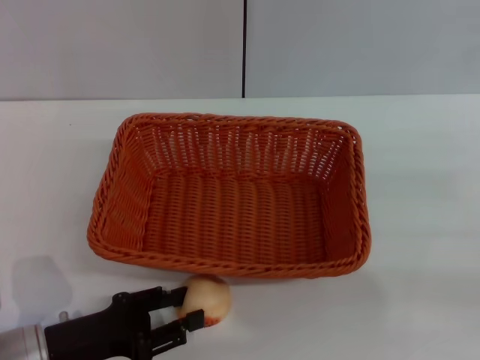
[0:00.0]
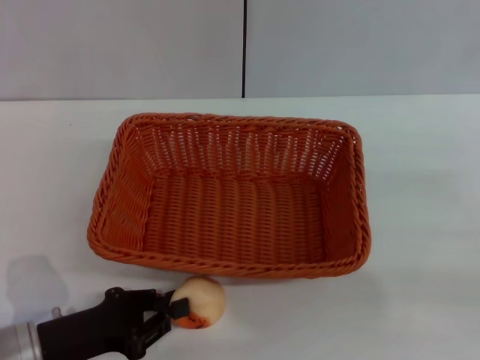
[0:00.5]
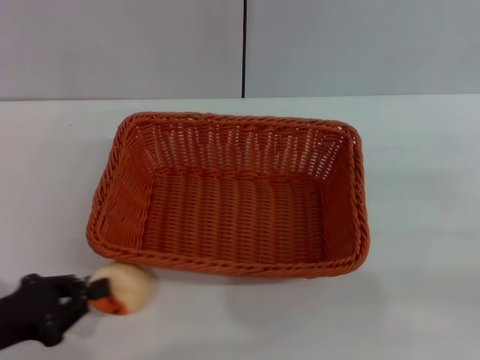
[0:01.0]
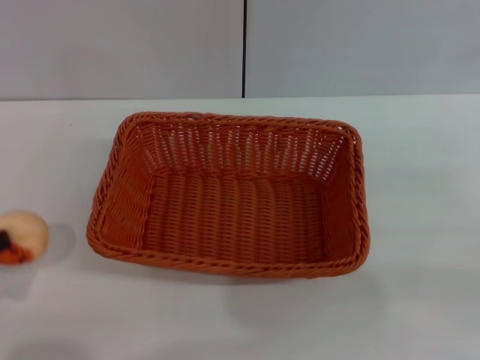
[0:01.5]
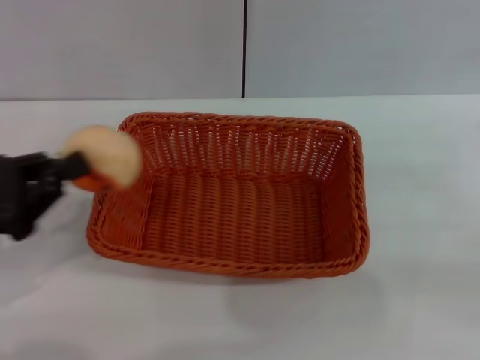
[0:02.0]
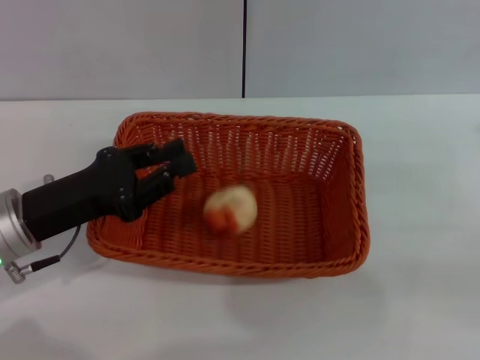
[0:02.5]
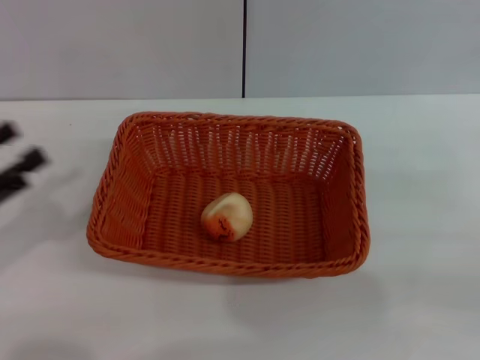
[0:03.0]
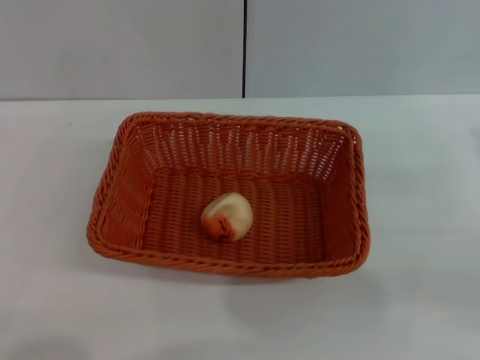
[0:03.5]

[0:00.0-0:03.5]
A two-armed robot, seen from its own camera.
Step, 0:02.0 to 0:02.5: Place the egg yolk pastry into the basket with the left gripper.
0:00.0 to 0:02.0: The left gripper moves upward and to the left, approximately 10 cm, and closes up.
0:02.0 to 0:03.5: The left gripper is displaced backward and to the left by approximately 15 cm, and opens.

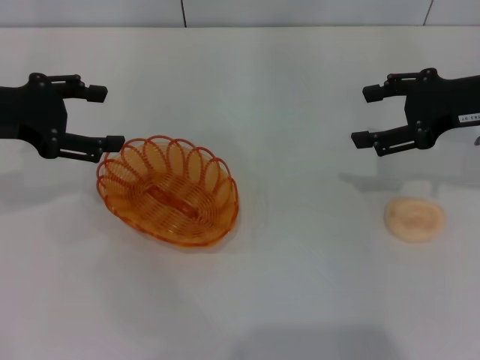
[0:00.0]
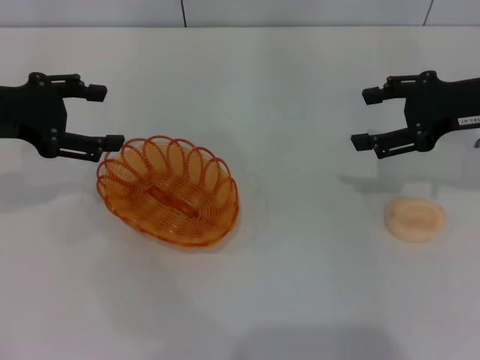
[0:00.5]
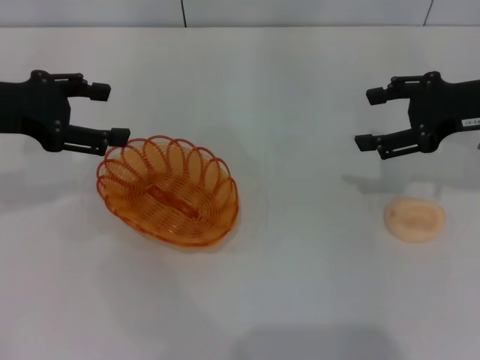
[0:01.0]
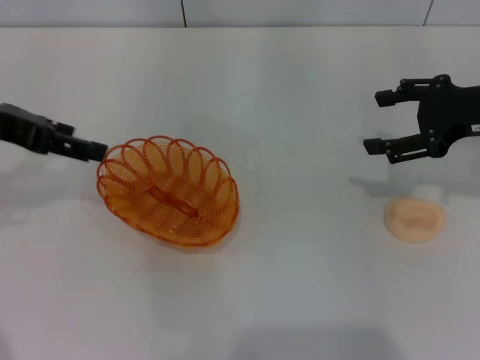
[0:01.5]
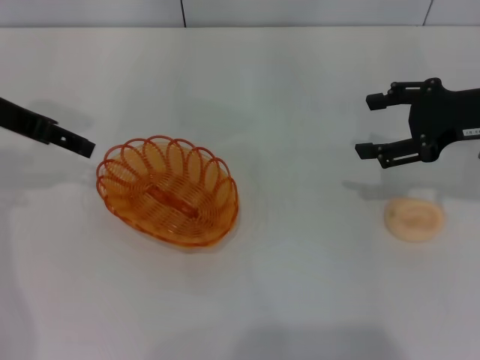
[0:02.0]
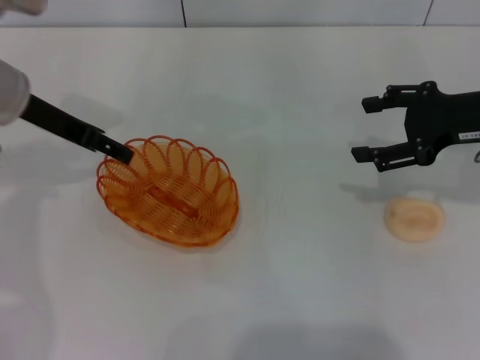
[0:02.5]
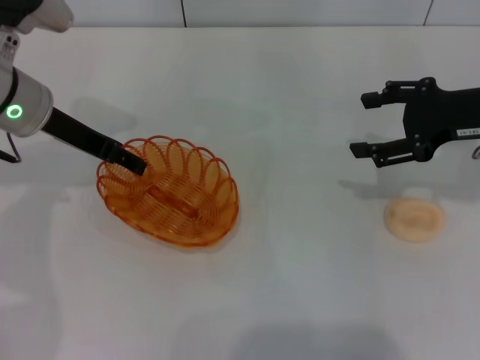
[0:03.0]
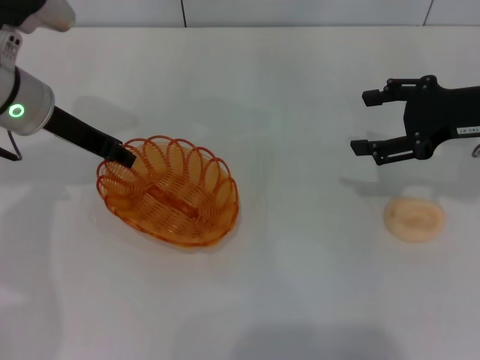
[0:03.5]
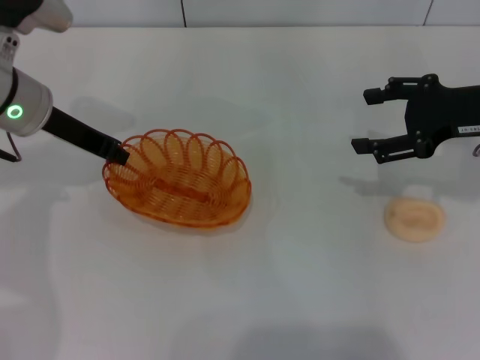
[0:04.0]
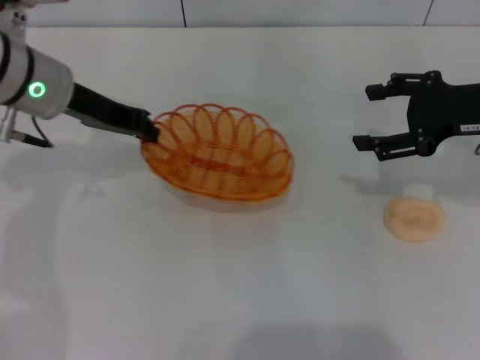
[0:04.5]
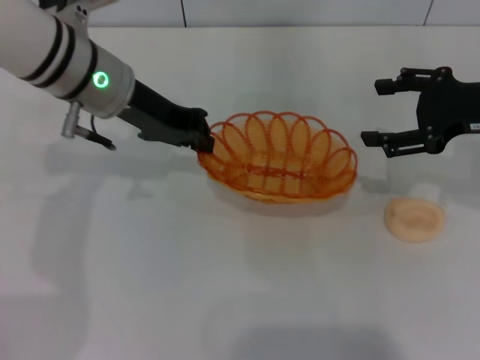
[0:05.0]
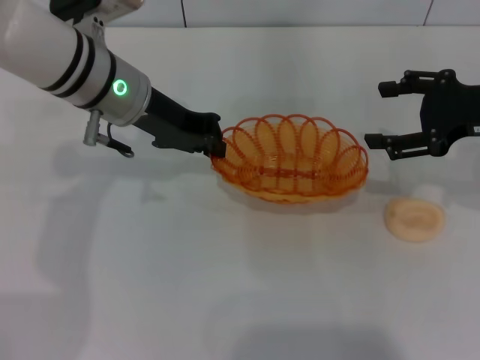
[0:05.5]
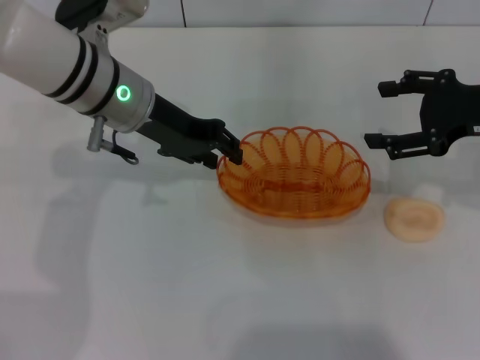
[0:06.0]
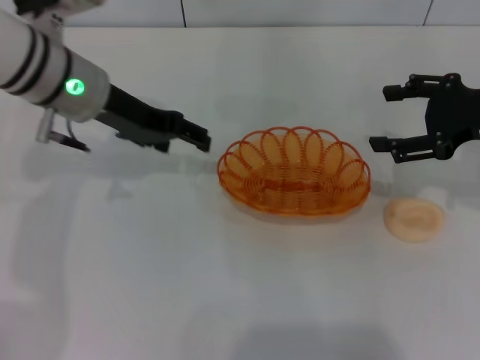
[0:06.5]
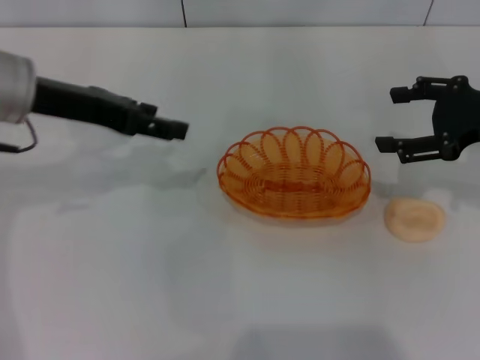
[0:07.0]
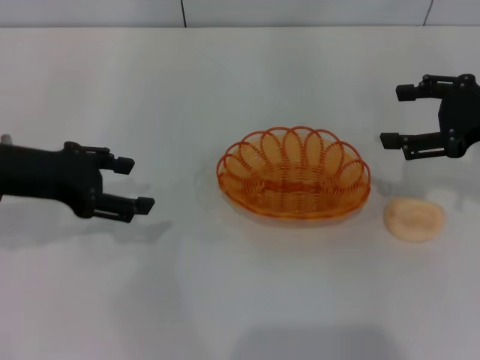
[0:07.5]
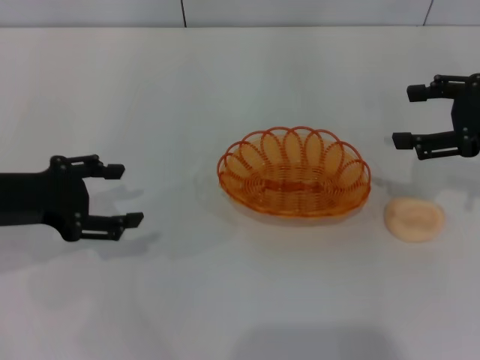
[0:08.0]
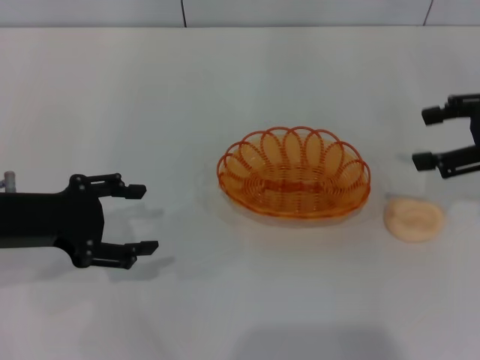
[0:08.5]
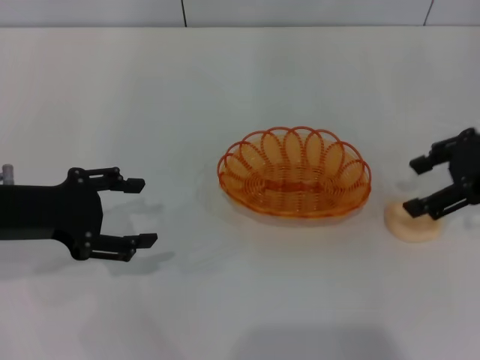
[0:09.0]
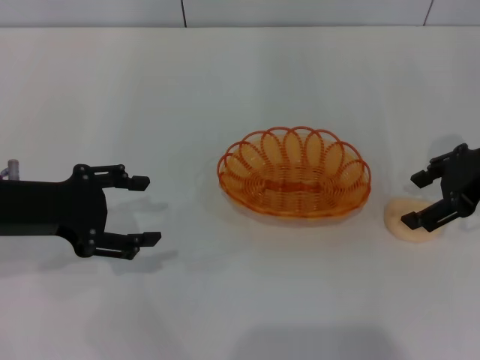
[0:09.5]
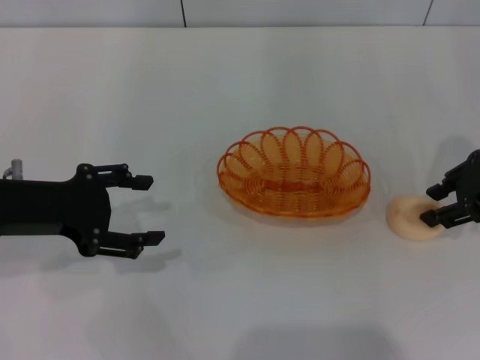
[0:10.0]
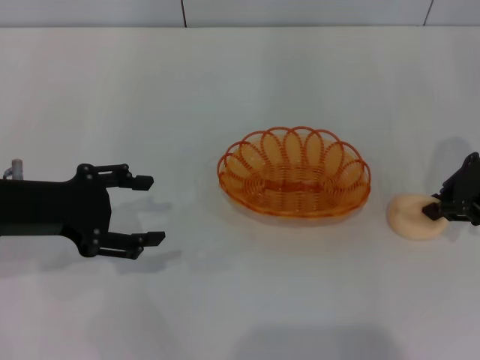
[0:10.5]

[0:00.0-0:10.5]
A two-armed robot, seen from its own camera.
Step, 0:00.0 to 0:04.5: Pick up the basket with the left gripper.
Step, 0:05.0 to 0:06.0: Place the basket in the center of view with the left gripper.
0:02.0 to 0:04.0: The left gripper goes roughly 5 cm downward and to the right, and closes up.
0:04.0 to 0:06.5: The left gripper opens its fingers.
0:06.5 to 0:08.5: The left gripper travels backward and to the left by about 15 cm.
0:08.5 to 0:10.5: The right gripper ends up roughly 5 cm from where it was, and closes.

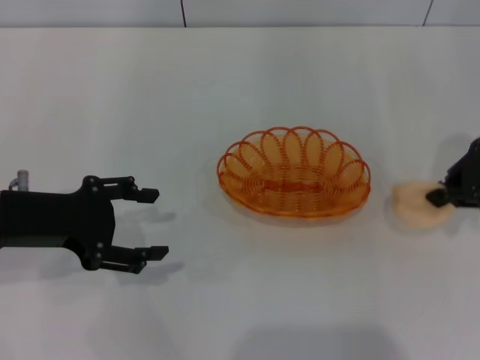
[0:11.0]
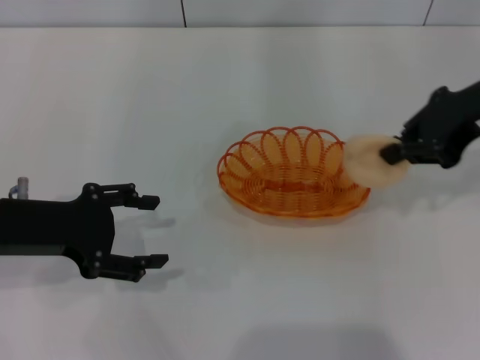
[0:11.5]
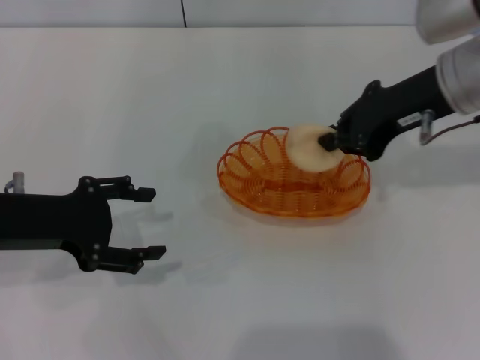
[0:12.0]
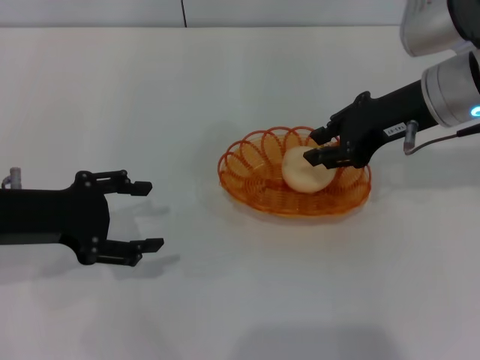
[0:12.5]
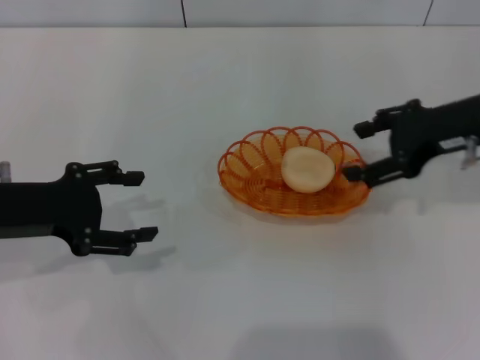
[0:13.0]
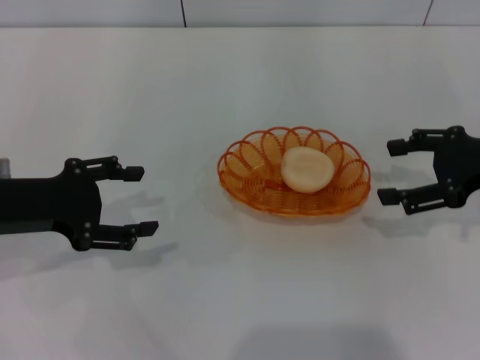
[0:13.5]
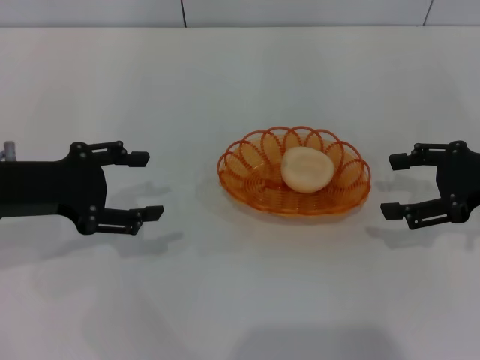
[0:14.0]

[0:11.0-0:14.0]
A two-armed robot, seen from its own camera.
Step, 0:11.5 to 0:12.5: Place the egg yolk pastry into the basket with the right gripper.
0:11.0 to 0:12.5: The right gripper goes some 10 cm to the left.
0:12.5 to 0:14.0: The right gripper travels to the right, backward and downward by some 15 cm, and opens.

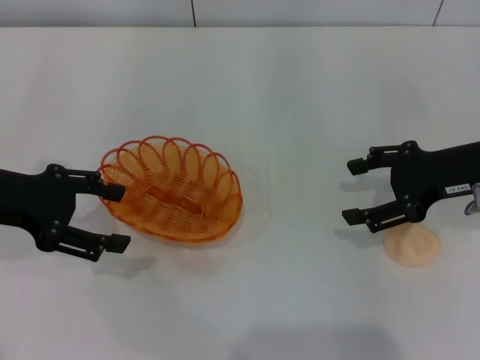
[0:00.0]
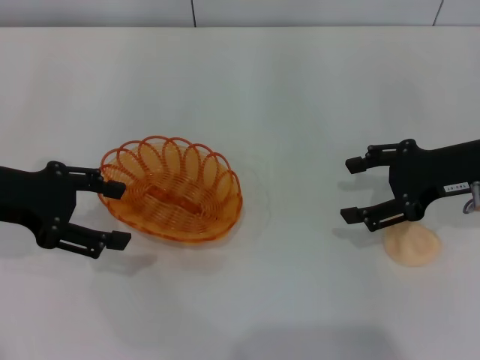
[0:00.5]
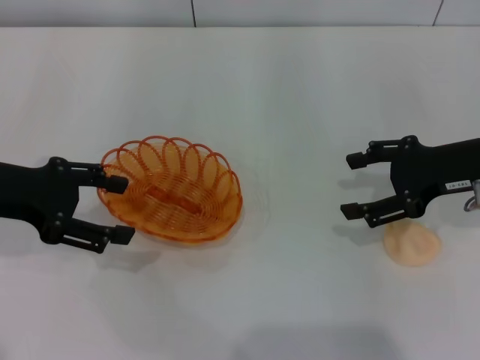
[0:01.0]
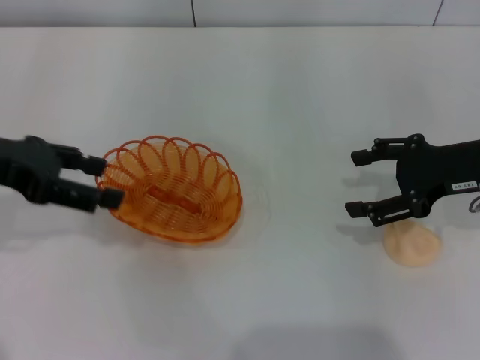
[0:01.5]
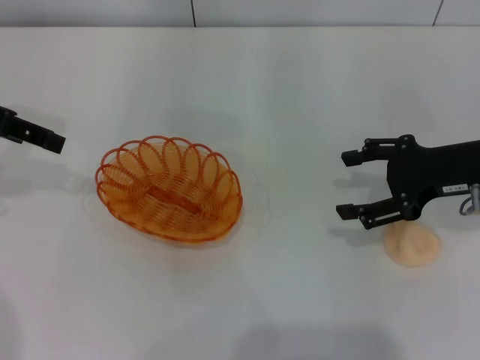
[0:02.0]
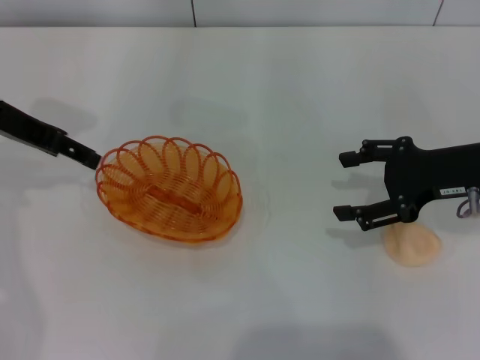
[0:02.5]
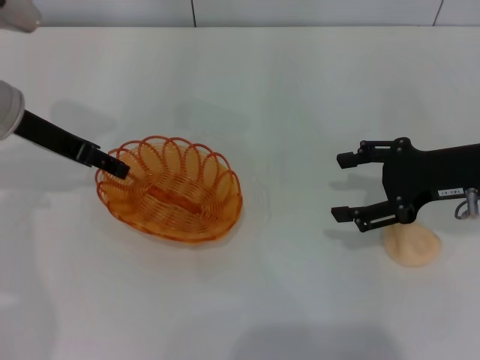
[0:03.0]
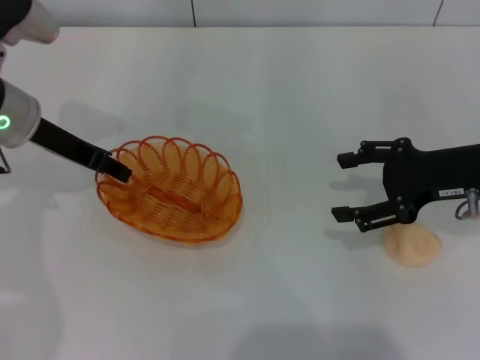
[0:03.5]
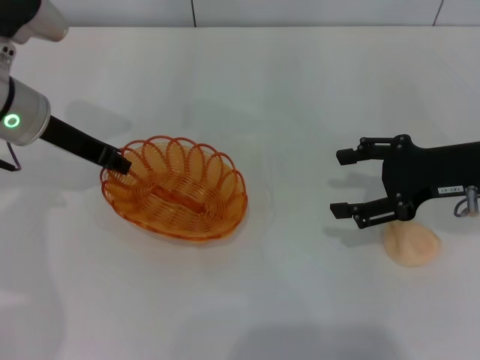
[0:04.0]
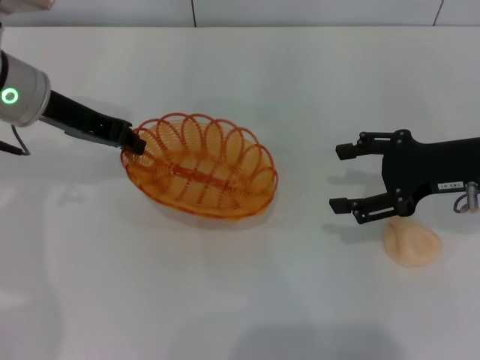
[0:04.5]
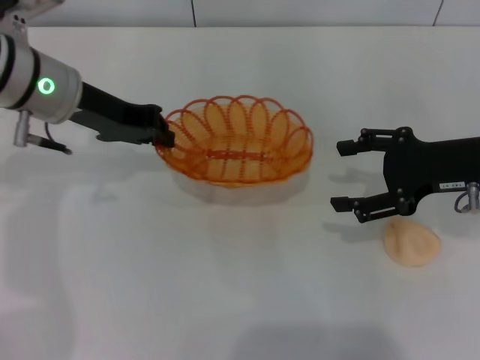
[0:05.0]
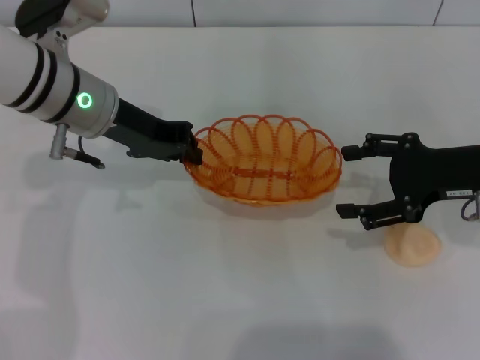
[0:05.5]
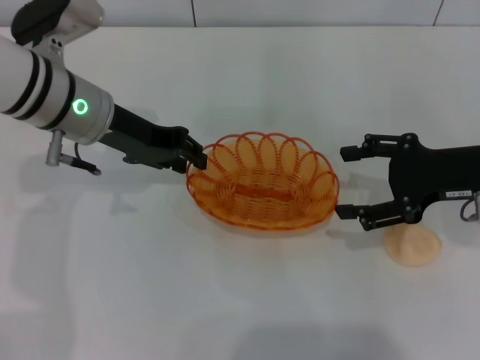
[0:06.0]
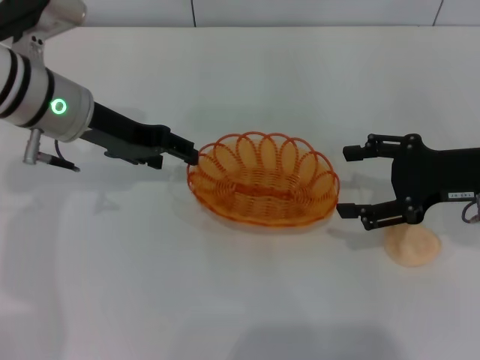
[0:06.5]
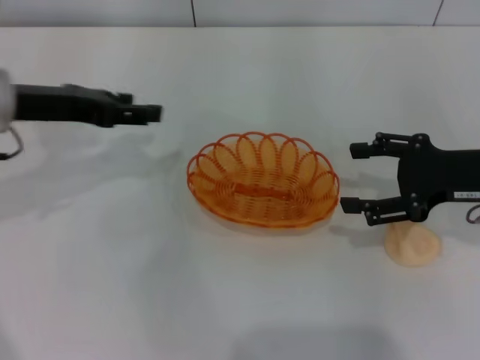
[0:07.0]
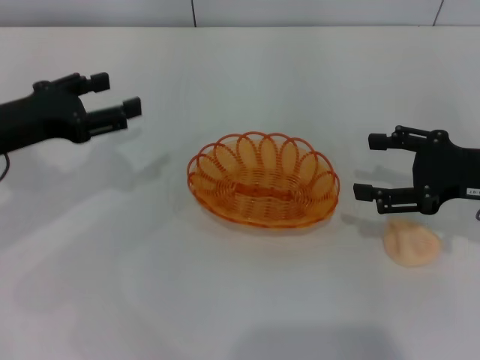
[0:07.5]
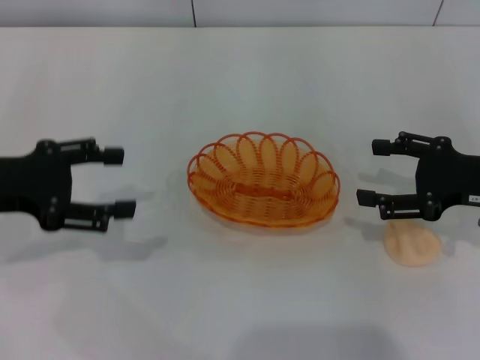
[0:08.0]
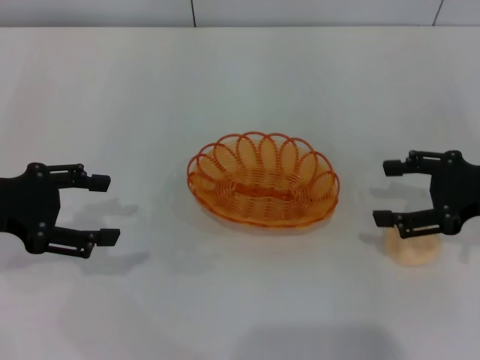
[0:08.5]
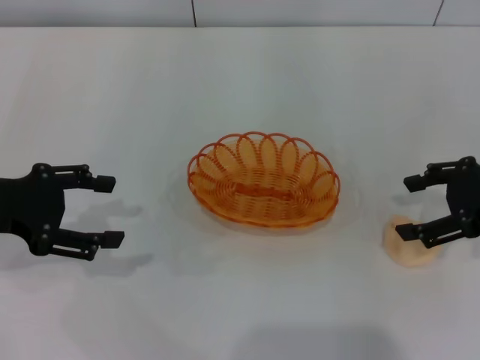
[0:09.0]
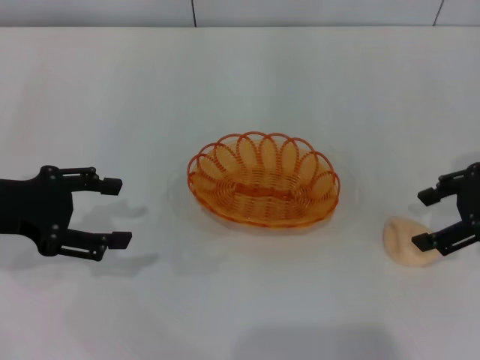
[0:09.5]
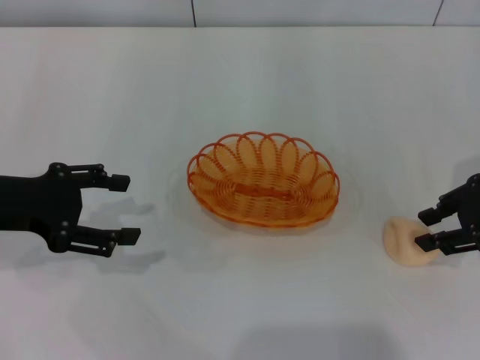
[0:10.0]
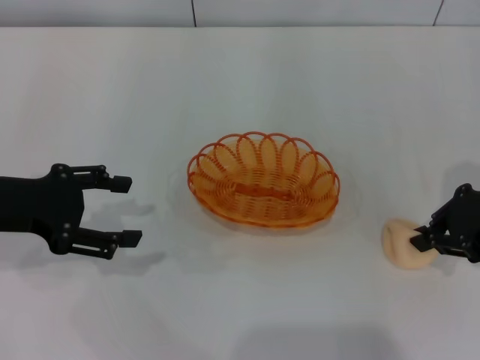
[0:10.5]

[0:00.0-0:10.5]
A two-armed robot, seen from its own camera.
Step, 0:00.0 to 0:04.5: Pick up the basket with the left gripper.
Step, 0:05.0 to 0:06.5: Place the basket in the center of view with the left gripper.
0:00.0 to 0:02.0: The left gripper moves upward and forward, approximately 10 cm.
0:02.0 to 0:04.0: The left gripper moves downward and to the right, some 10 cm, and closes up.
0:04.0 to 0:06.5: The left gripper opens its fingers.
0:06.5 to 0:08.5: The left gripper is displaced to the left and backward by approximately 15 cm.
0:08.5 to 0:10.5: The right gripper closes up.
